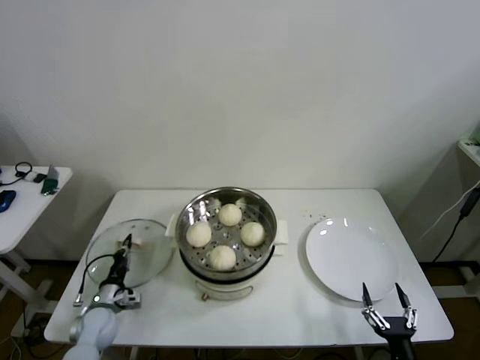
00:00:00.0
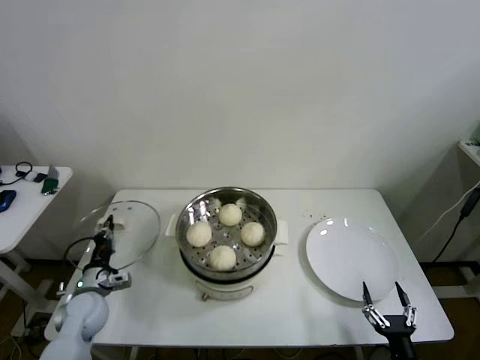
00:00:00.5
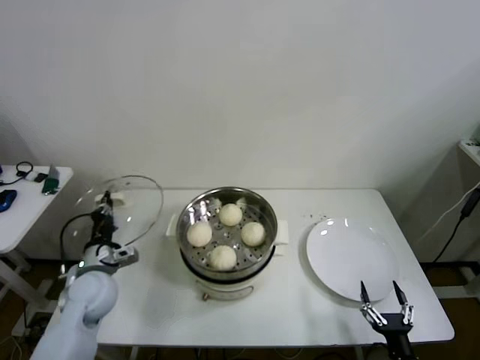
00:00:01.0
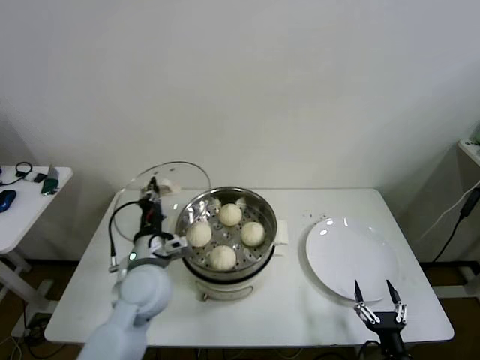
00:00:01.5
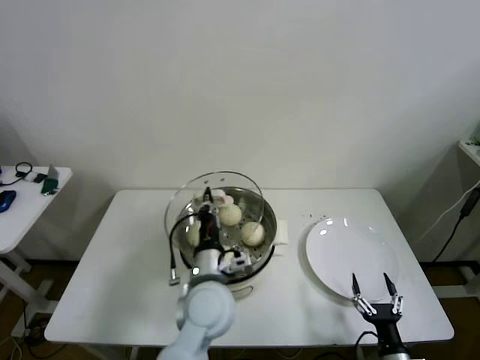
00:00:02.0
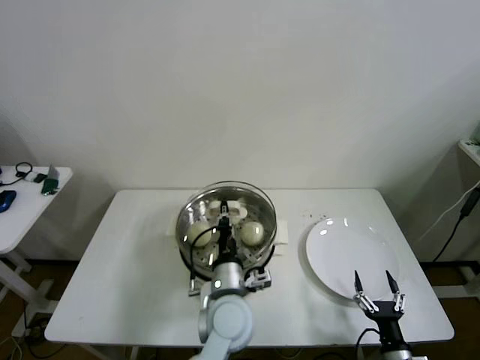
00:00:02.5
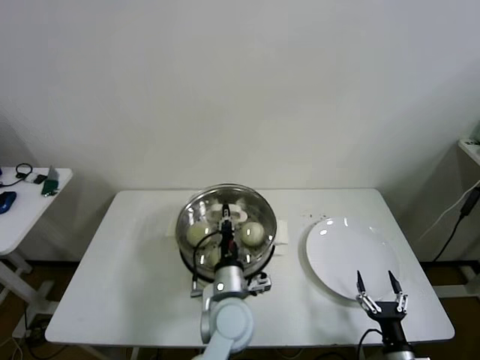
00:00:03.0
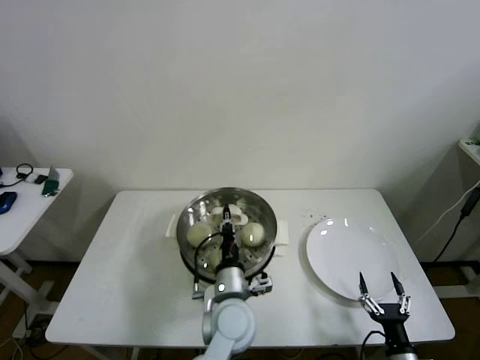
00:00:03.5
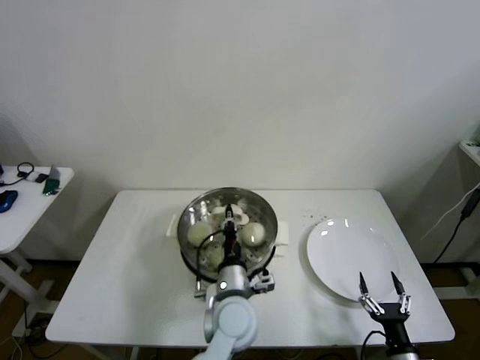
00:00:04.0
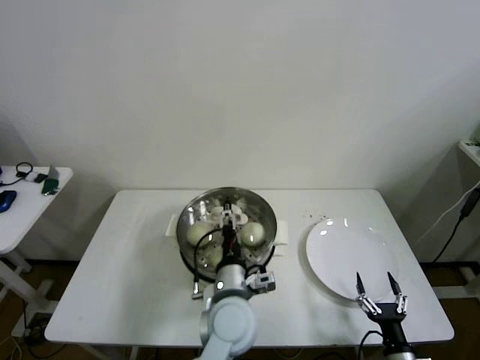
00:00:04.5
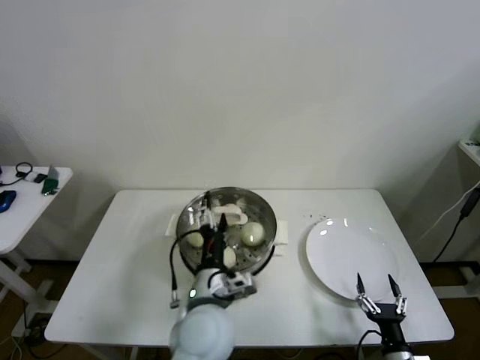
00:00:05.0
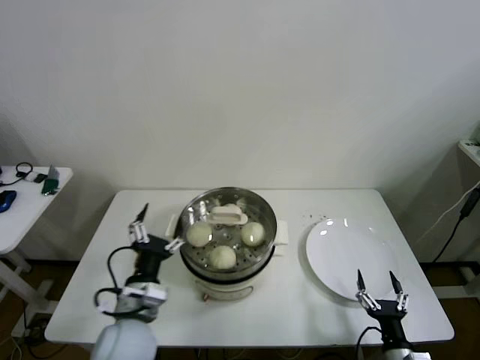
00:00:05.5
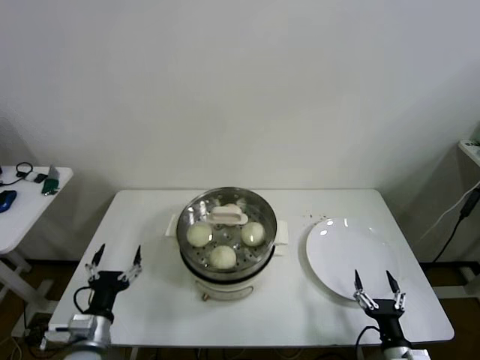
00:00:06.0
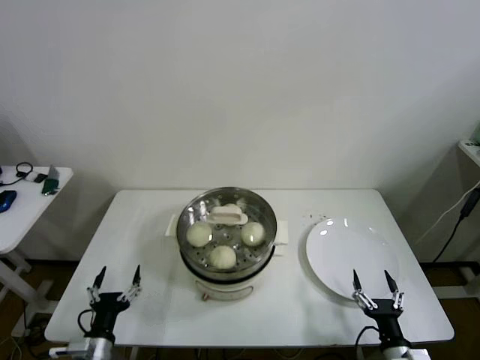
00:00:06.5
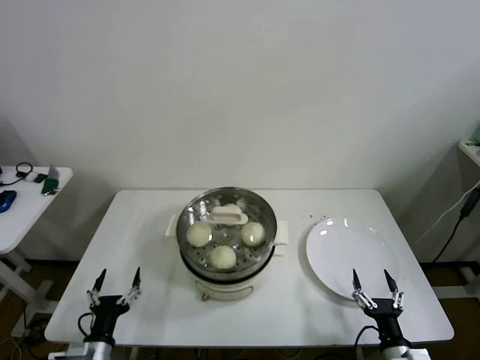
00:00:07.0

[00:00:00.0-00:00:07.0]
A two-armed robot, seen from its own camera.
Step, 00:00:00.0 to 00:00:03.5: Place the pot lid on the steamer with left gripper.
00:00:00.0 to 00:00:02.0: The left gripper shifts about 35 cm to the right and upward.
00:00:02.0 to 00:00:03.5: The left gripper moves downward and to the right, some 10 cm.
00:00:03.5 to 00:00:05.0: The left gripper goes some 5 cm upward, and opens its fingers.
00:00:05.0 to 00:00:07.0: The left gripper shifts roughly 30 cm to the left and downward.
